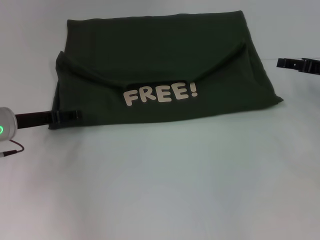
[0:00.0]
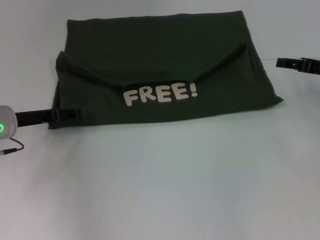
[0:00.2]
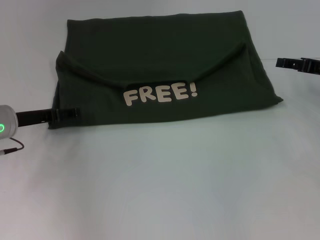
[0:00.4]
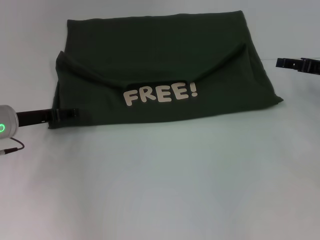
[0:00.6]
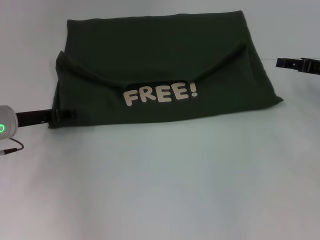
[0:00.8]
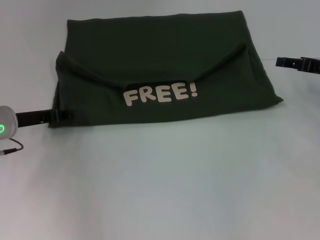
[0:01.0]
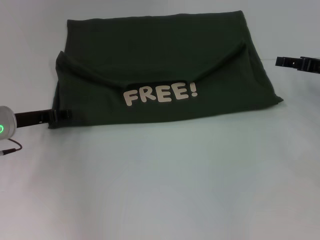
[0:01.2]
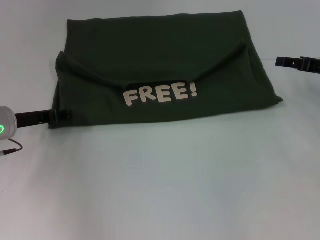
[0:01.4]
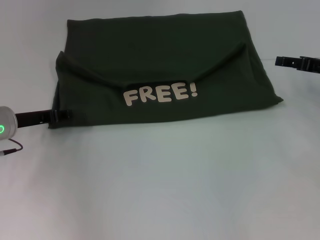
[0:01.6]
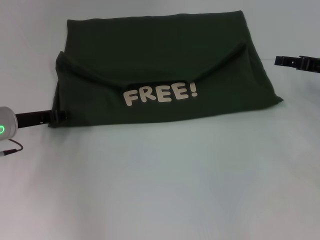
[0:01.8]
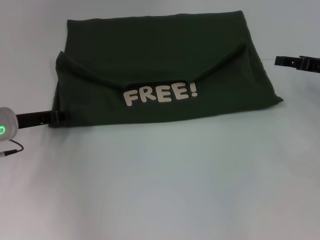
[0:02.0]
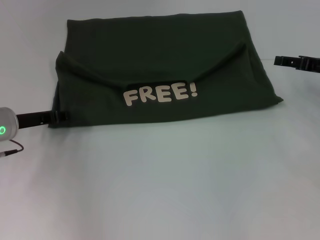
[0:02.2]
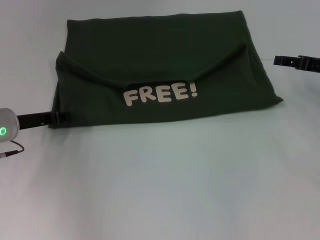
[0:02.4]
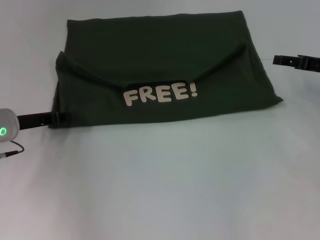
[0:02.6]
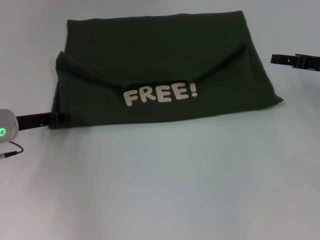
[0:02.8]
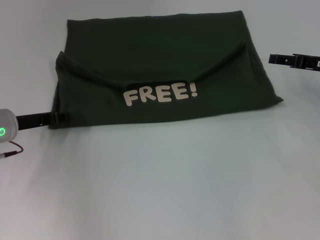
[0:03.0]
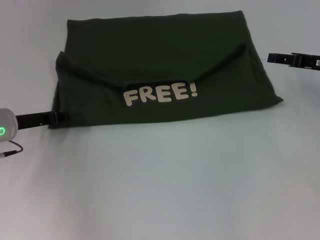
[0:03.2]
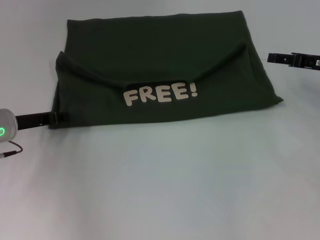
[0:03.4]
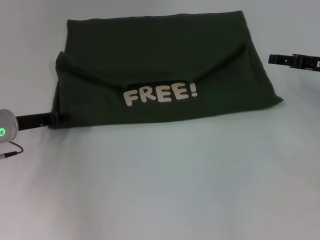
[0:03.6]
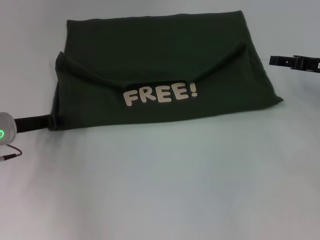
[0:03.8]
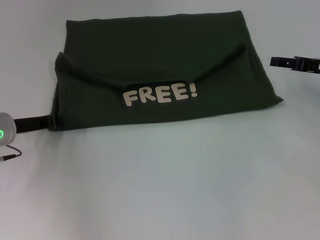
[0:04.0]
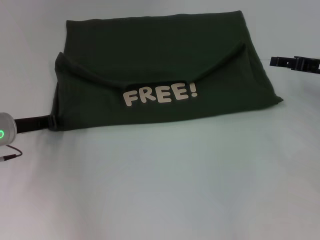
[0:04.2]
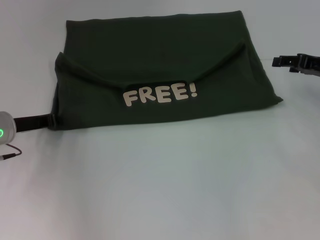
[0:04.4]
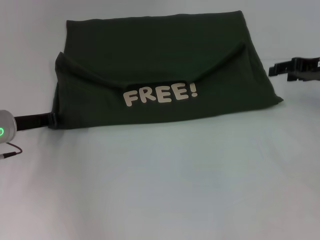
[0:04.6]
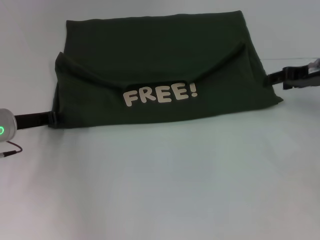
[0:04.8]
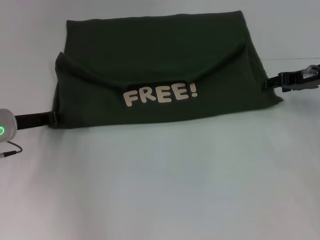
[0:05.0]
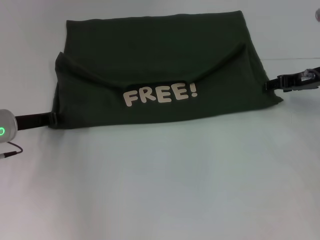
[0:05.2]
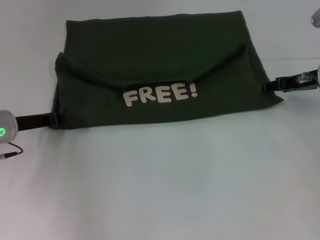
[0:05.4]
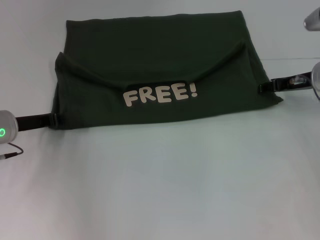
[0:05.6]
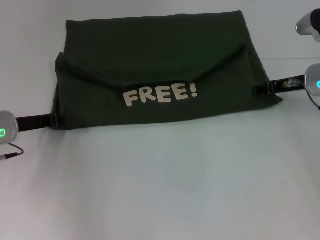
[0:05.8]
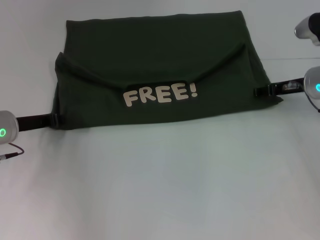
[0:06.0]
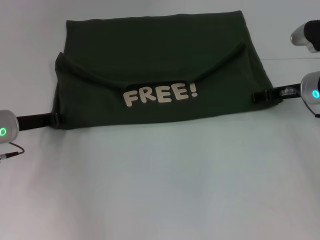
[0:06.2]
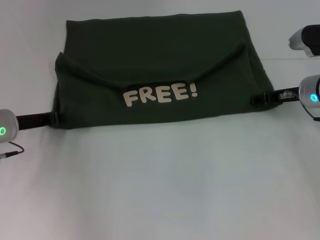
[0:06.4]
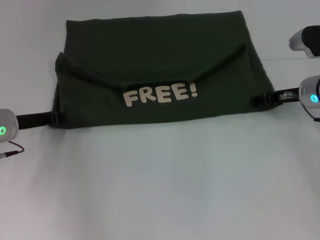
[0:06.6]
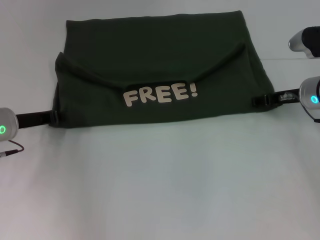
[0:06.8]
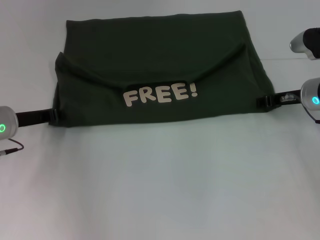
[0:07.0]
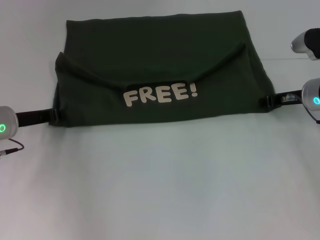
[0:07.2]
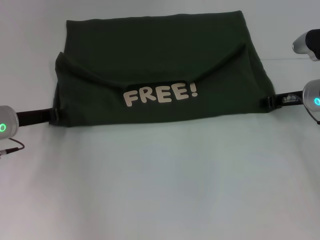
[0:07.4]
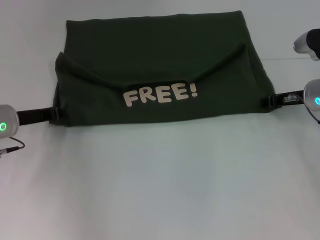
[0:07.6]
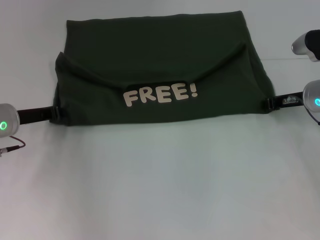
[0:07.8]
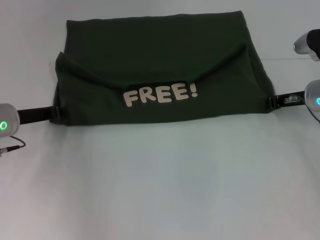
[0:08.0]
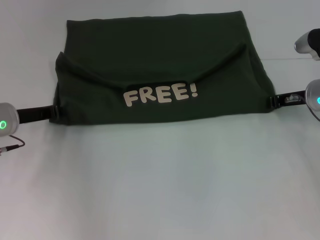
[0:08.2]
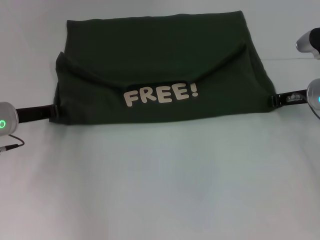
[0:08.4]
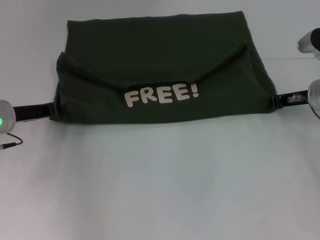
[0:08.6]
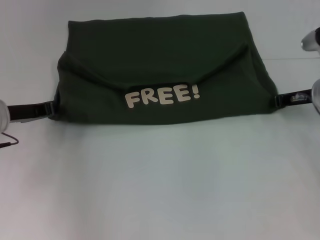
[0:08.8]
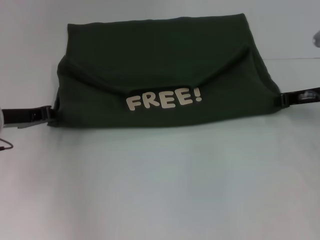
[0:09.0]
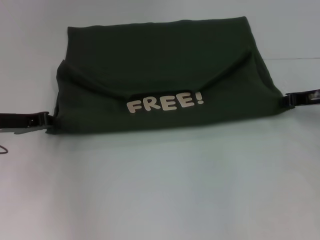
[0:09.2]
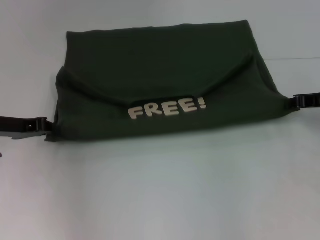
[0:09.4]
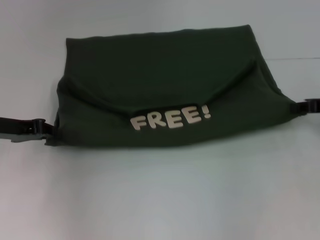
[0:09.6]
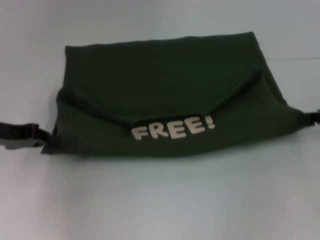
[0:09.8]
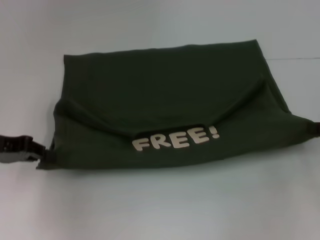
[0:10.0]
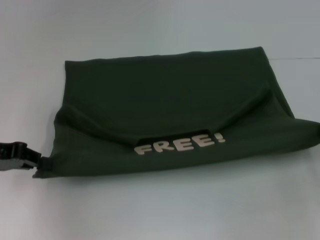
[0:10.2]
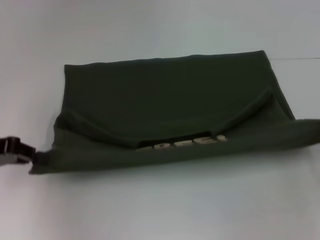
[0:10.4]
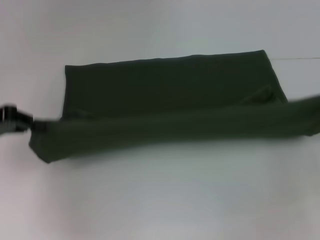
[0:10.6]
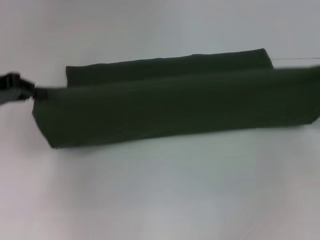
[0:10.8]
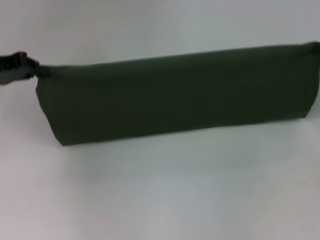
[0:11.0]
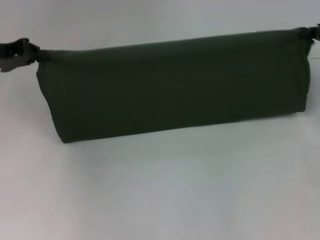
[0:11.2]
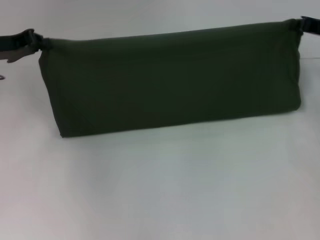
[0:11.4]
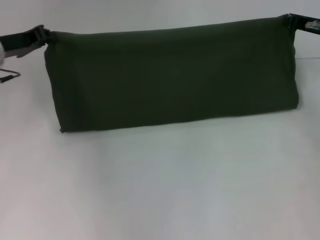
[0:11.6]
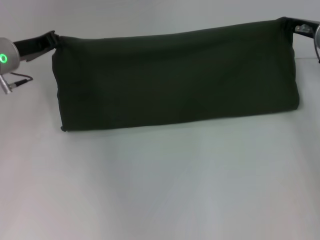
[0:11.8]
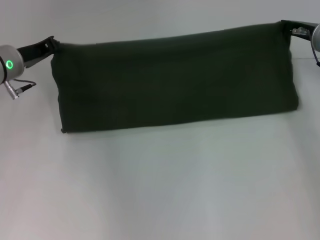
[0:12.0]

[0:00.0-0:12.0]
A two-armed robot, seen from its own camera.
Step, 0:00.0 to 0:10.2: Pull the clothes with your left hand.
Step, 0:00.0 to 0:10.2: Pull the clothes with your right hand.
0:00.0 to 0:01.6: Both grippers stay put.
0:01.6 to 0:03.0: Neither gripper changes place.
0:03.0 to 0:04.4: The grippers make only small movements.
0:04.4 to 0:06.0: The right gripper heads to the left, covering roughly 5 cm.
0:06.0 to 0:07.6: The right gripper closes.
0:07.6 to 0:09.0: There are only small adjustments of the grippers.
0:09.0 to 0:10.4: The right gripper moves backward and to the right, approximately 15 cm. The left gripper shifts some 10 cm backward and upward.
0:10.4 to 0:12.0: The left gripper goes about 15 cm forward and to the right, while the right gripper moves forward and to the left, approximately 20 cm.

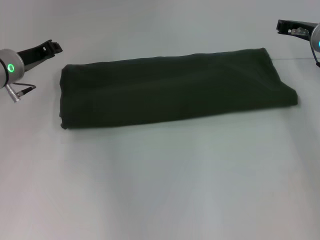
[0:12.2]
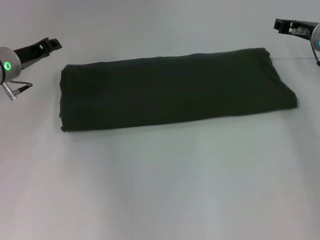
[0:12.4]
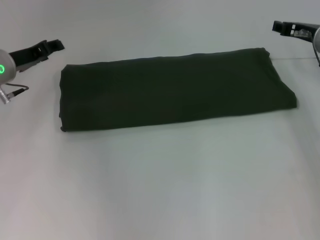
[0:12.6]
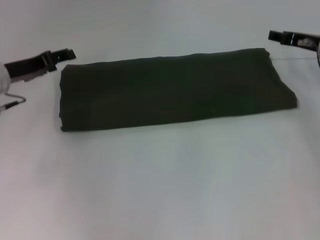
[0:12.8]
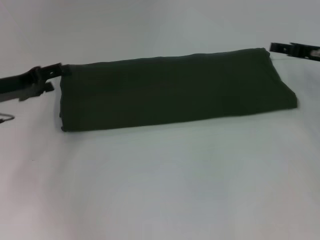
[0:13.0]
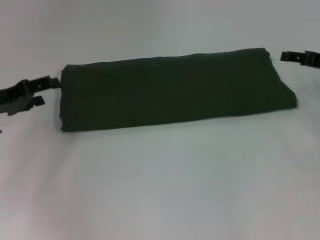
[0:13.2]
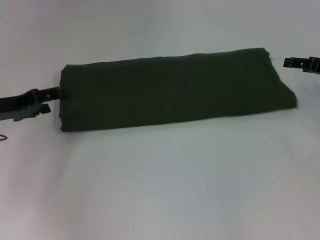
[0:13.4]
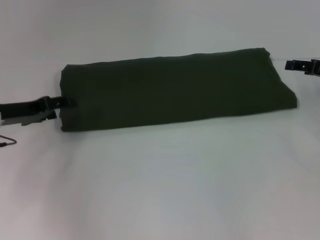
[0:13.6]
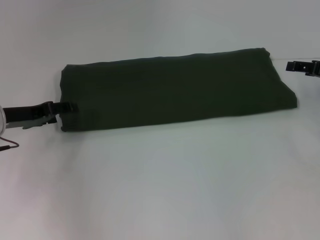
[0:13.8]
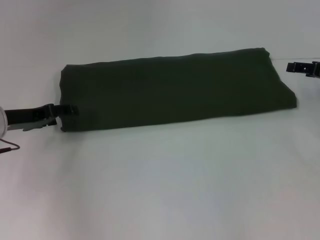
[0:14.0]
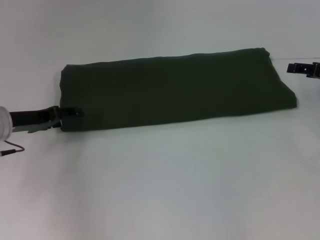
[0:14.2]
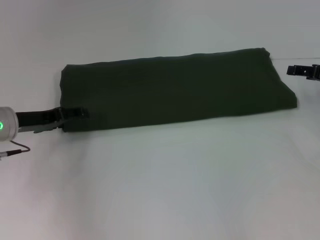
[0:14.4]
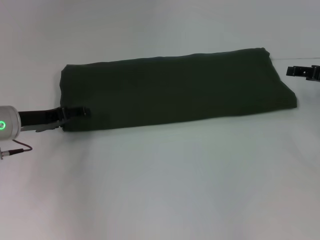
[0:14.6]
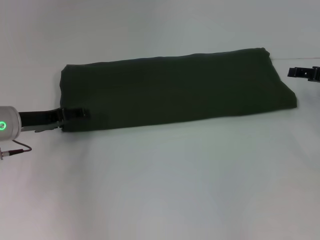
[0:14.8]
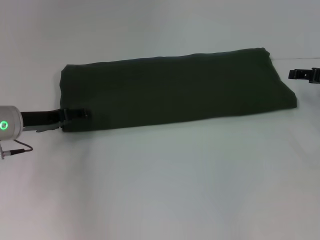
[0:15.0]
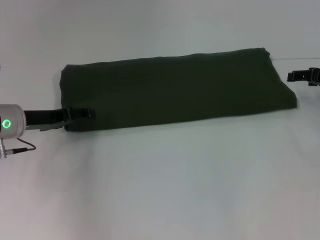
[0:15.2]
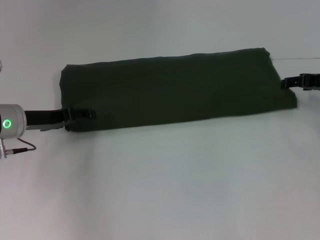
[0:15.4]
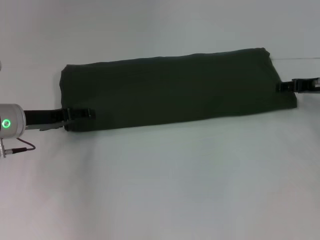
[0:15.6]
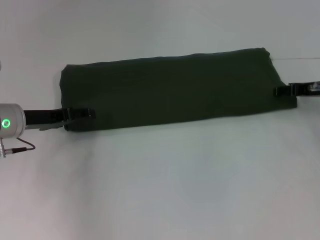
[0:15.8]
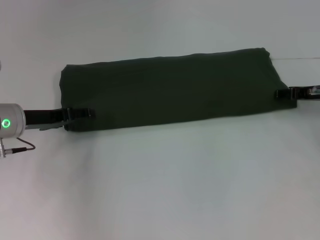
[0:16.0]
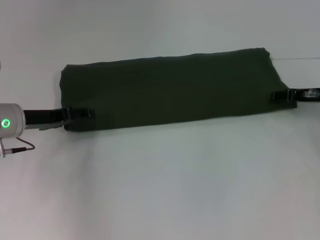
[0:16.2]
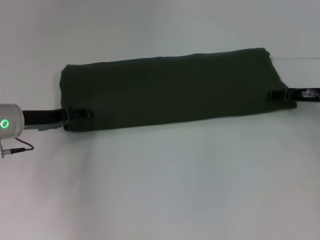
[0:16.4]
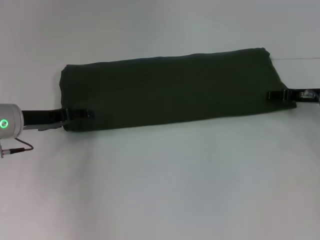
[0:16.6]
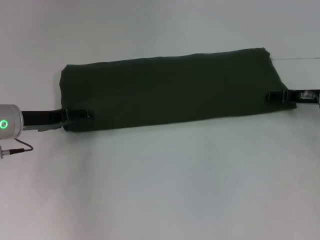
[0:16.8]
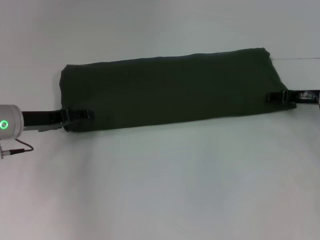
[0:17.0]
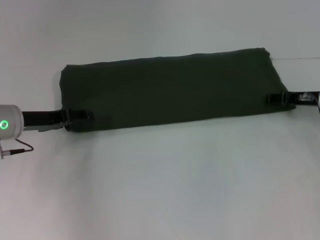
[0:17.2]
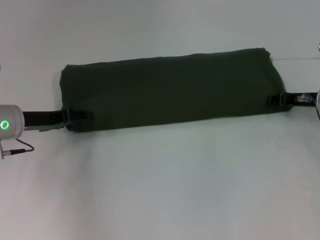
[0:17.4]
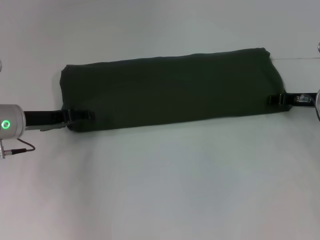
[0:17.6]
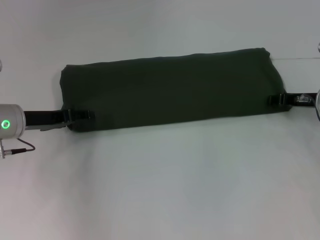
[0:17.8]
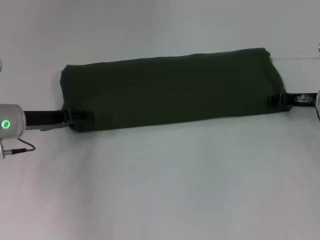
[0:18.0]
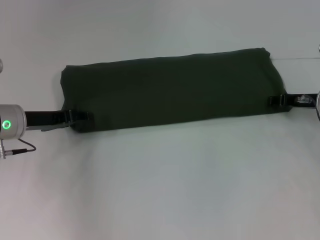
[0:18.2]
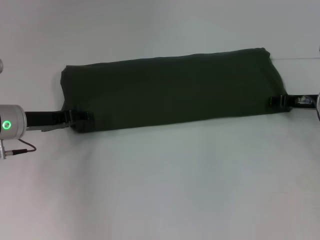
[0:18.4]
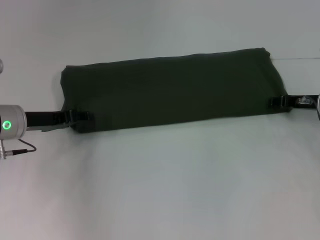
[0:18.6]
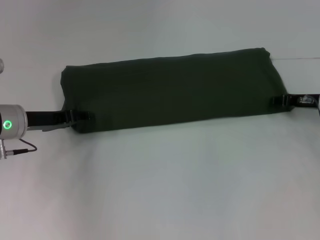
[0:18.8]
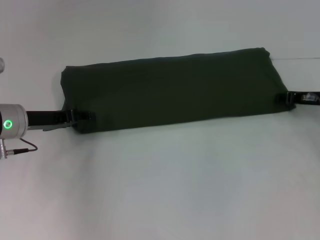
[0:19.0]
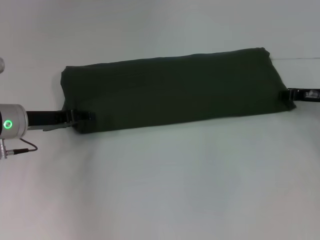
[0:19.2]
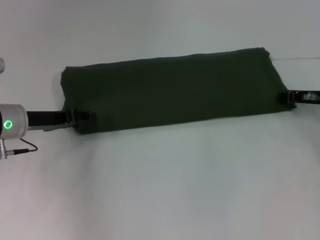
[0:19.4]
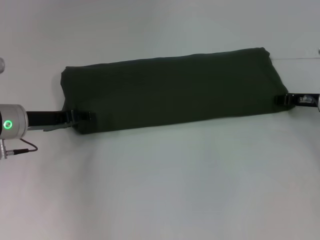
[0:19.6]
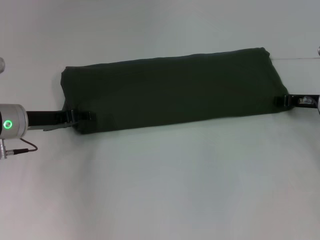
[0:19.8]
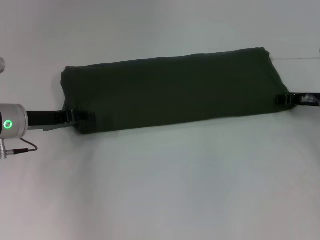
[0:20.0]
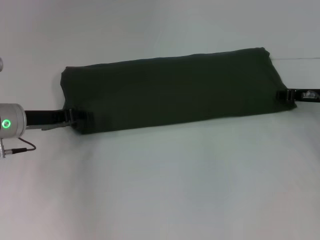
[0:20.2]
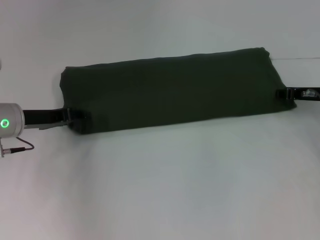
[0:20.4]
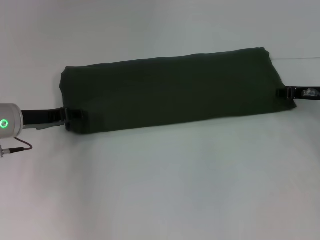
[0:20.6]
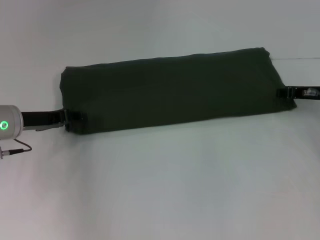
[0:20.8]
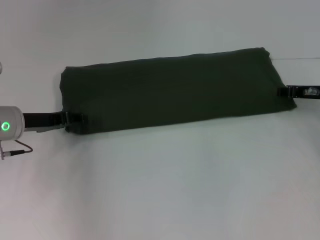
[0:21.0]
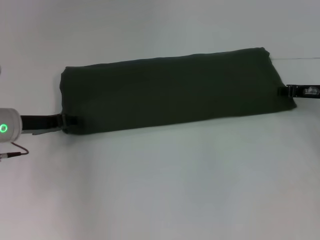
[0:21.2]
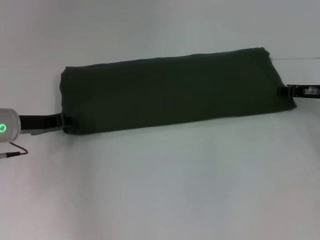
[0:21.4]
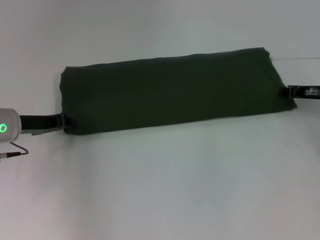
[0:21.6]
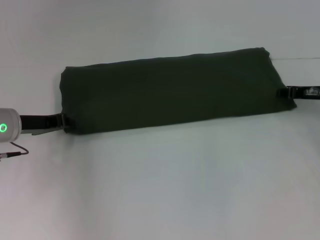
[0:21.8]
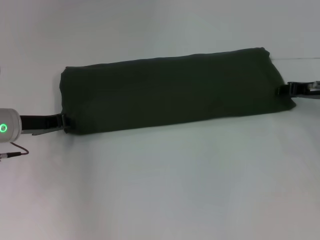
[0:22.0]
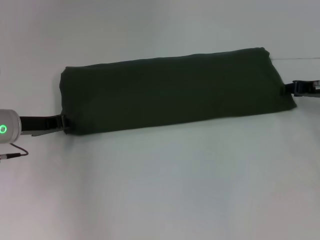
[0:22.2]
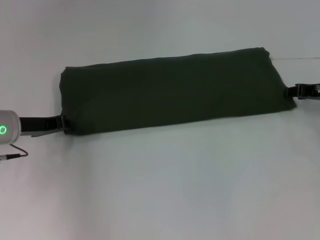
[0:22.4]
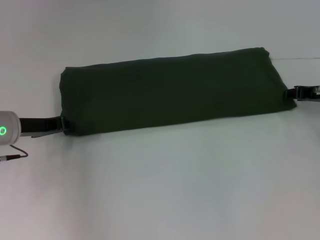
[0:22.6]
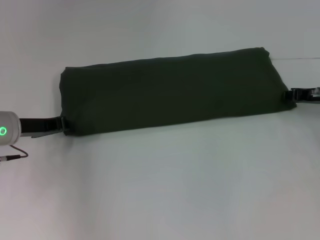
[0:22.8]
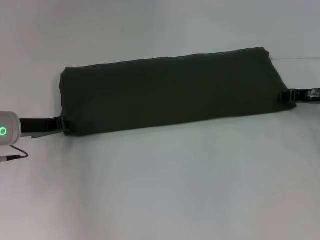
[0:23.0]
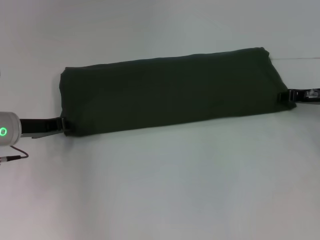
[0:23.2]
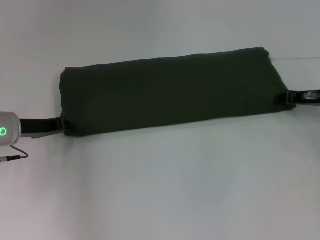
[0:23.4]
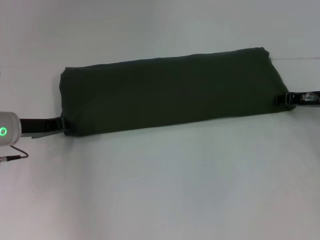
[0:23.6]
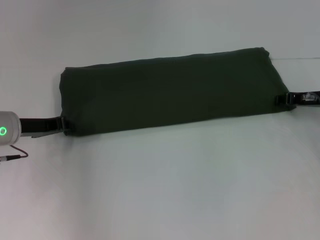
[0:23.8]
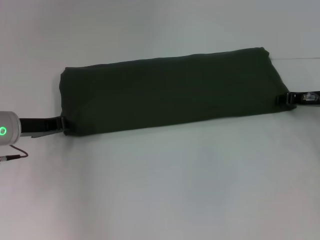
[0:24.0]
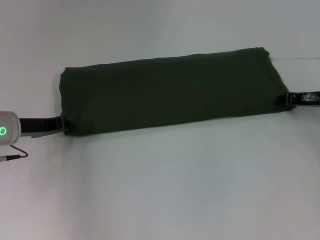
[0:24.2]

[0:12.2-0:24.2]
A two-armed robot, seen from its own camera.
0:12.2 to 0:13.8: The right gripper is displaced to the right and backward by about 10 cm, and opens up, while the left gripper is displaced backward by roughly 5 cm, and opens.
0:13.8 to 0:15.2: There are only small adjustments of the grippers.
0:15.2 to 0:16.6: The right gripper changes place by roughly 5 cm.
0:16.6 to 0:18.2: Both grippers stay put.
0:18.2 to 0:21.2: The grippers make only small movements.
0:21.2 to 0:22.6: The left gripper closes.
